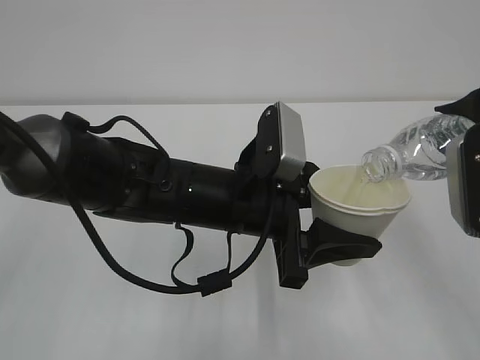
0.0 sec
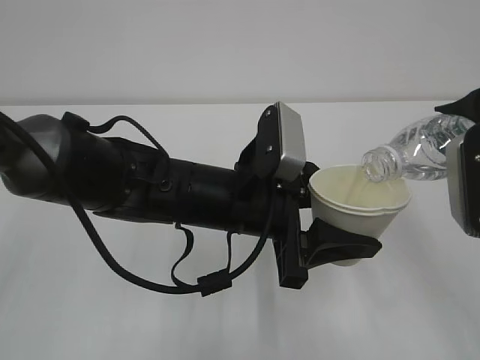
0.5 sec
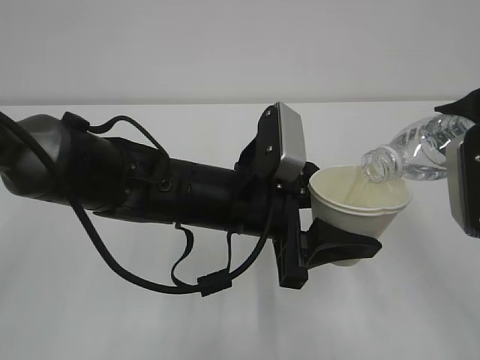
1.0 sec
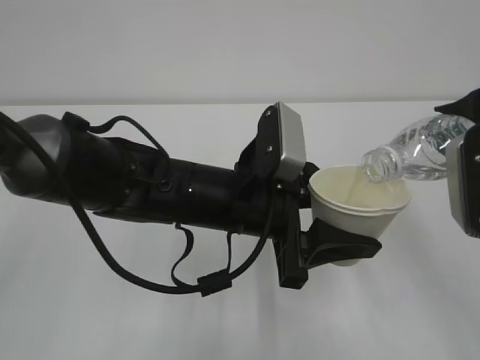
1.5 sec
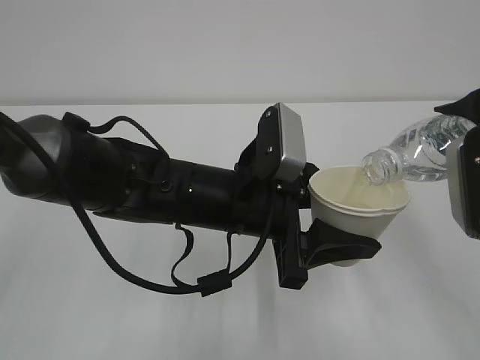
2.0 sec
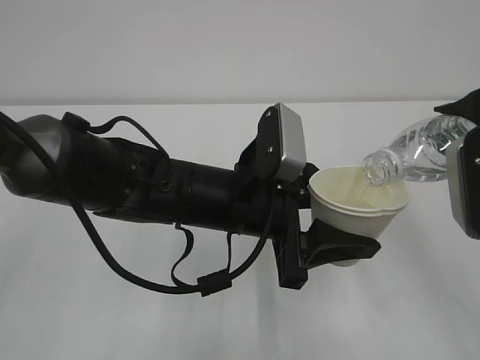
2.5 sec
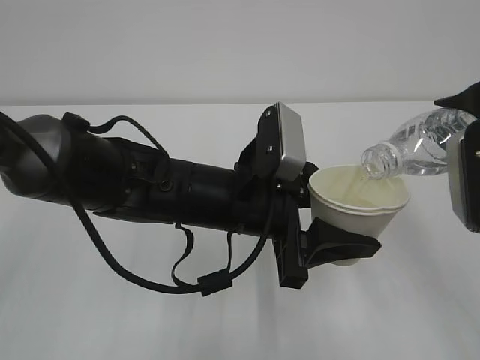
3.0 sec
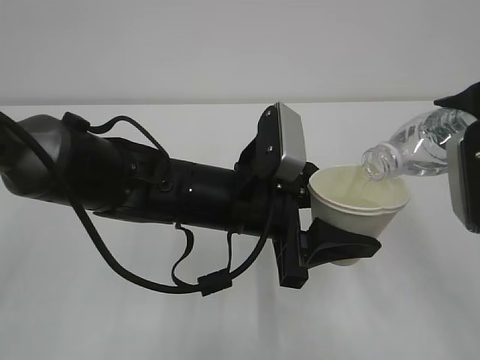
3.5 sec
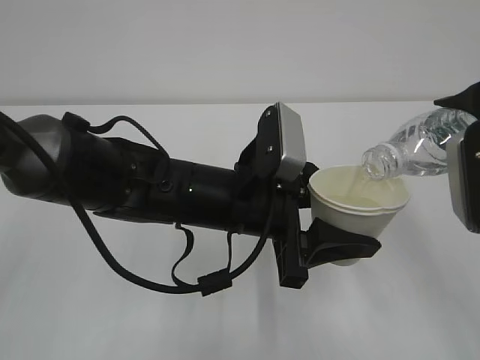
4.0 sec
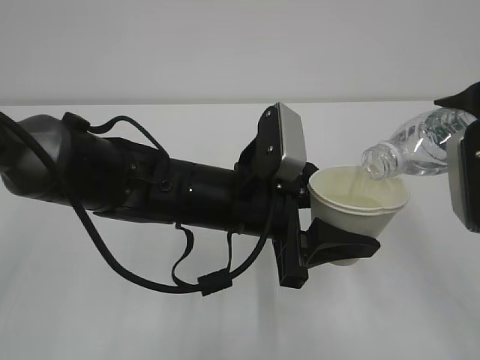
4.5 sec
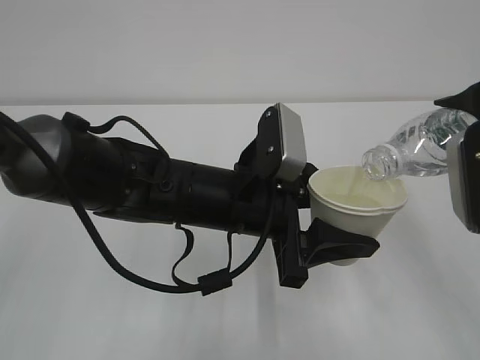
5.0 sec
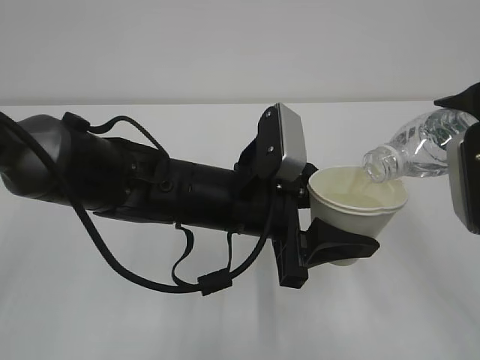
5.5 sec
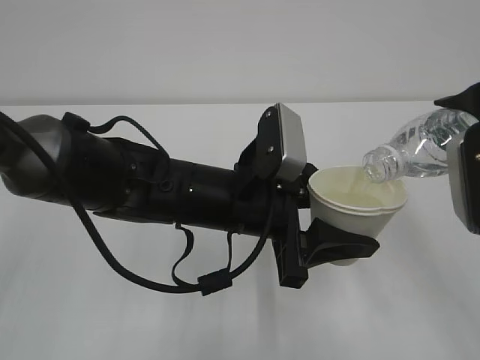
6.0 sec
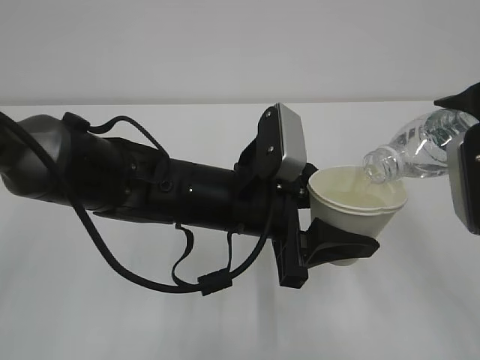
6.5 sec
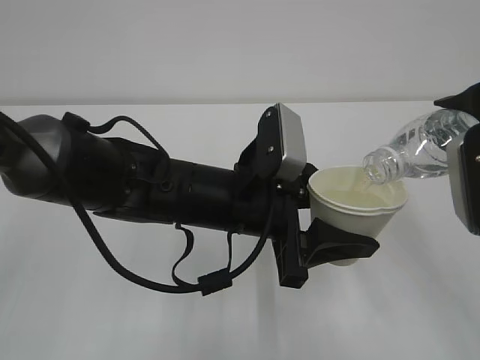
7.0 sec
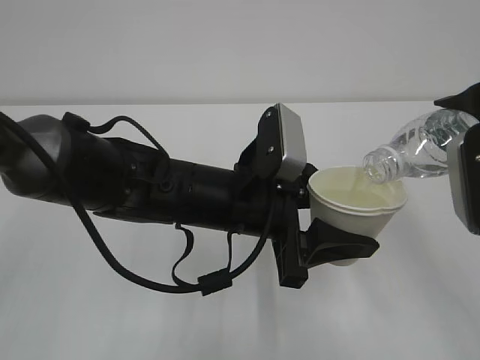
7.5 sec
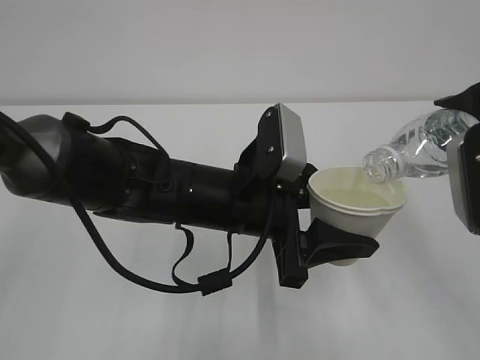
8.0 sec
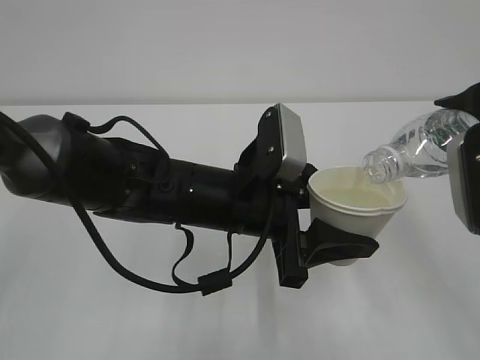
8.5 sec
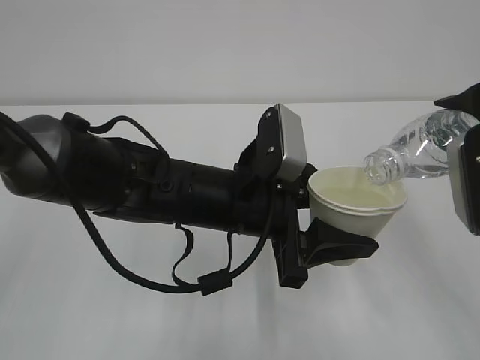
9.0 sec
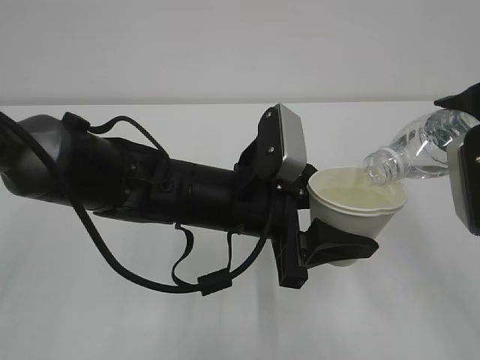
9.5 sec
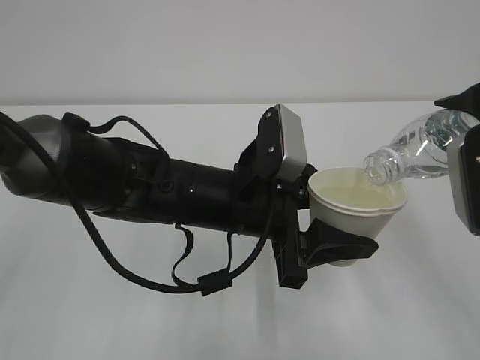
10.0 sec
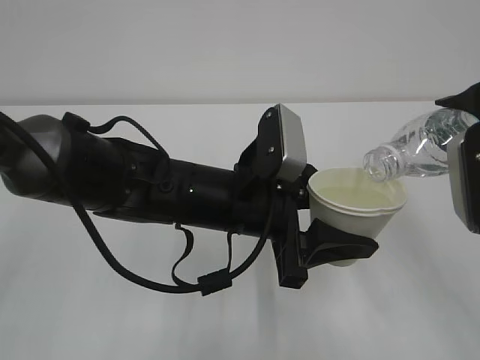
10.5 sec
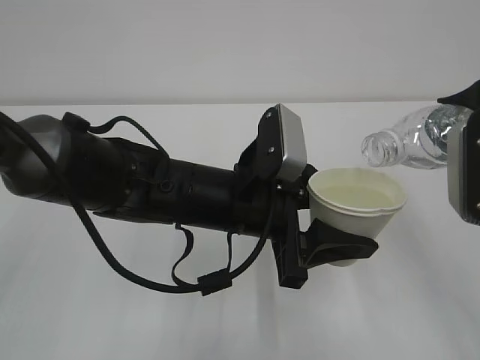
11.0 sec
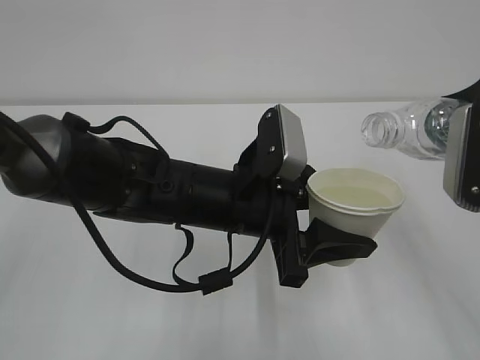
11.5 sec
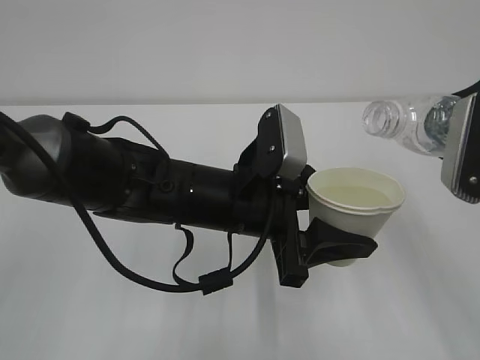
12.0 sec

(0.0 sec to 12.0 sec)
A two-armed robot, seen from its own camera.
0.0 sec - 10.0 sec: Both grippers stay put.

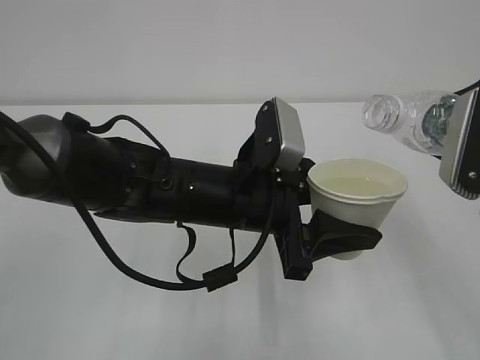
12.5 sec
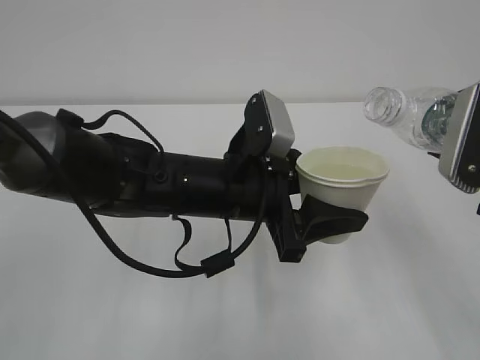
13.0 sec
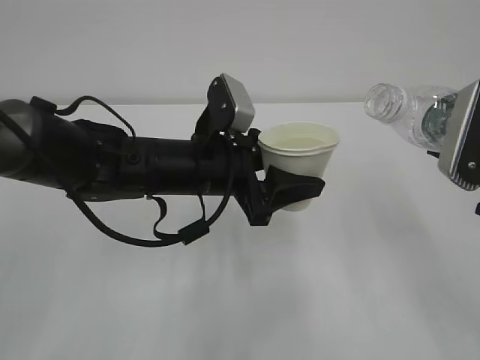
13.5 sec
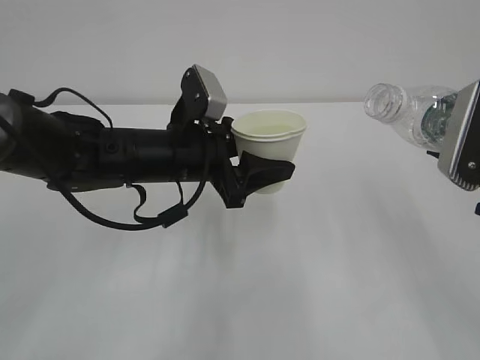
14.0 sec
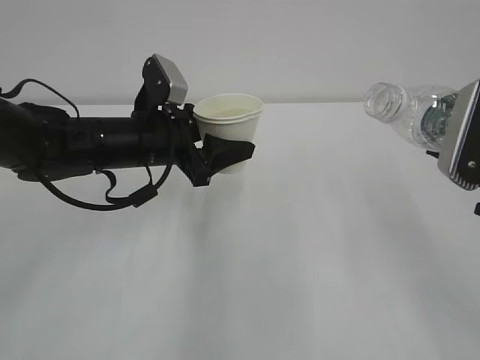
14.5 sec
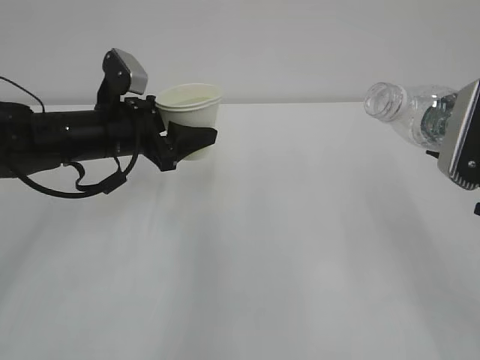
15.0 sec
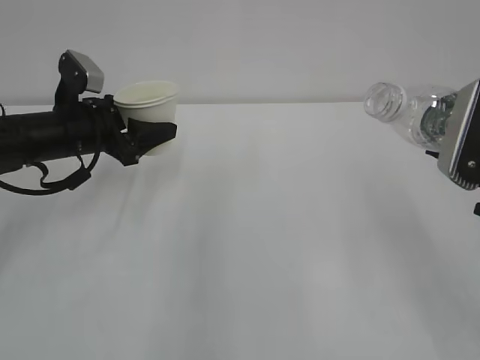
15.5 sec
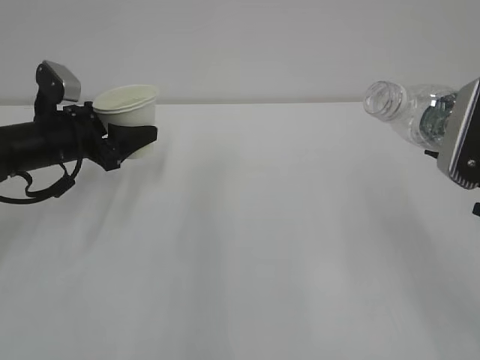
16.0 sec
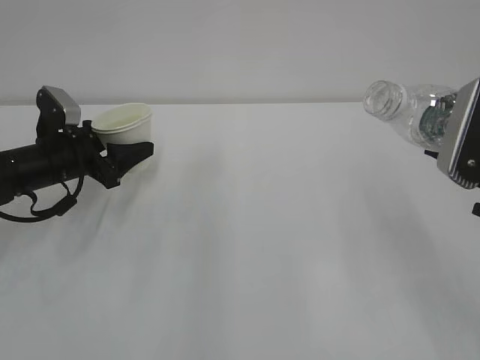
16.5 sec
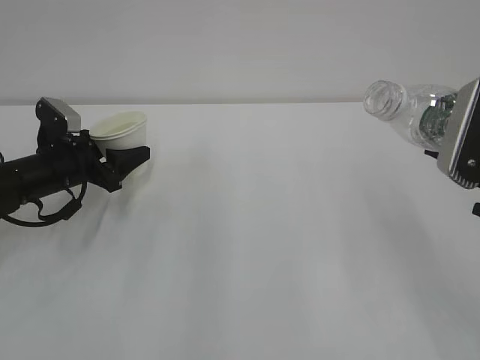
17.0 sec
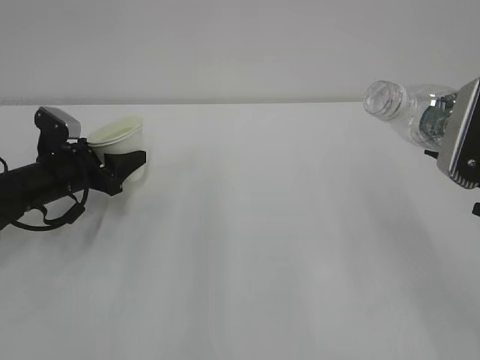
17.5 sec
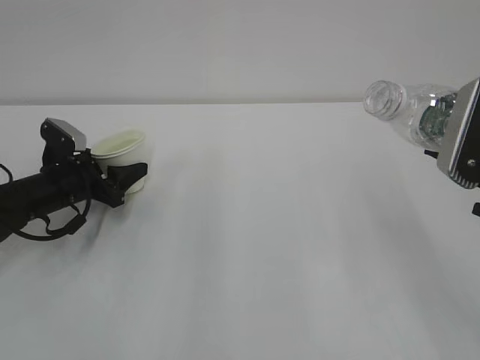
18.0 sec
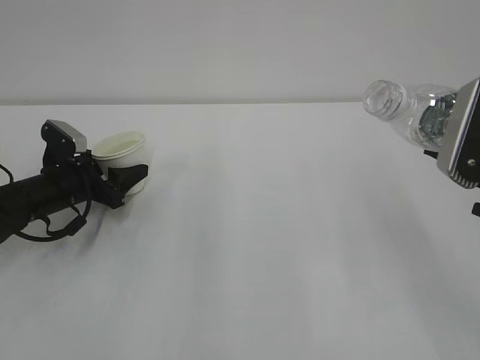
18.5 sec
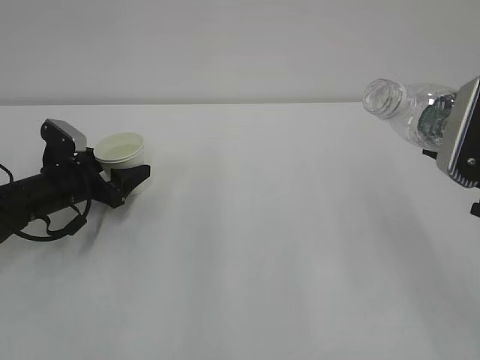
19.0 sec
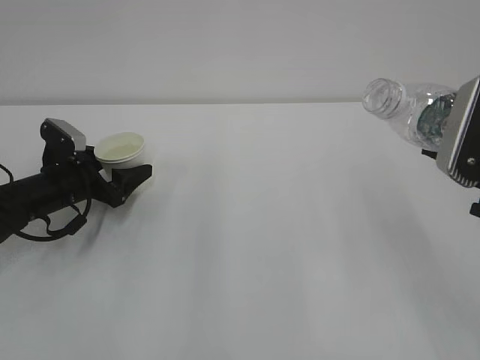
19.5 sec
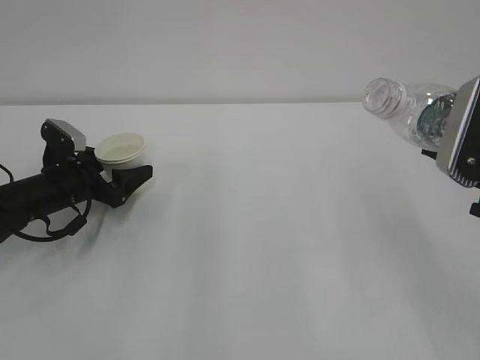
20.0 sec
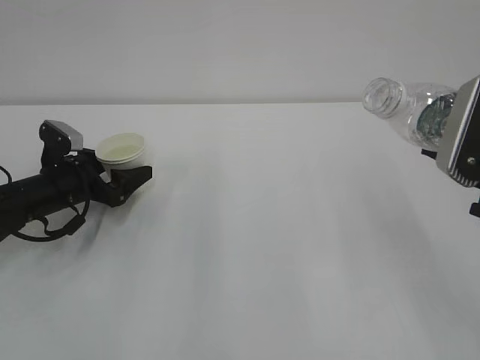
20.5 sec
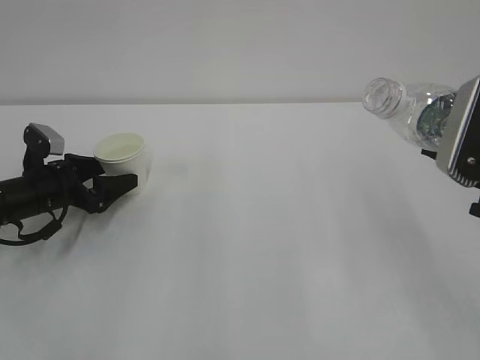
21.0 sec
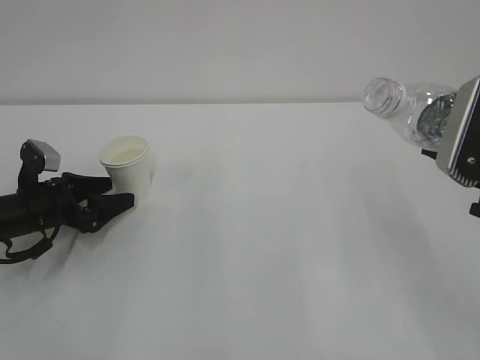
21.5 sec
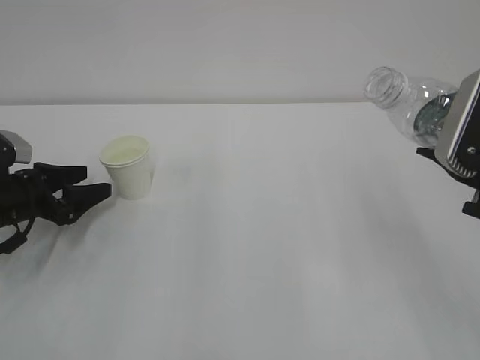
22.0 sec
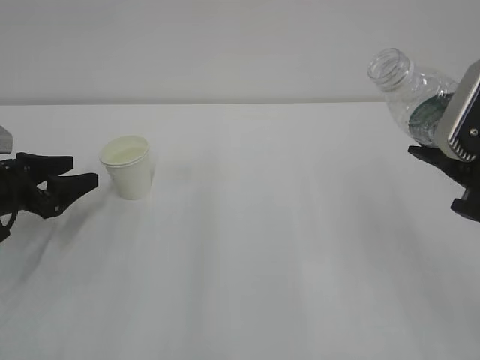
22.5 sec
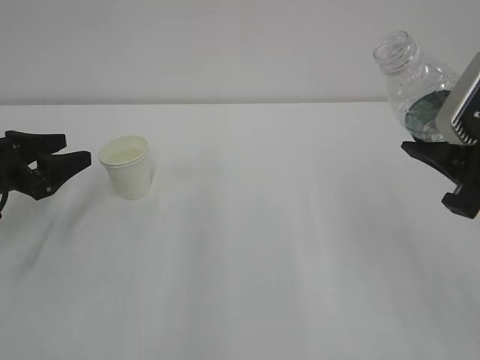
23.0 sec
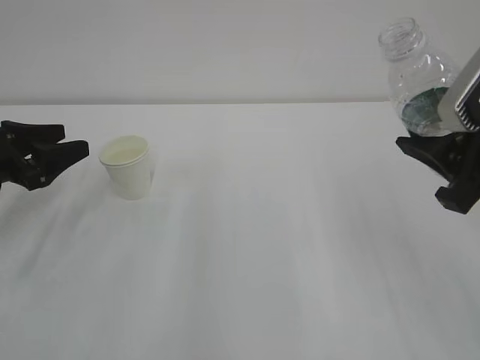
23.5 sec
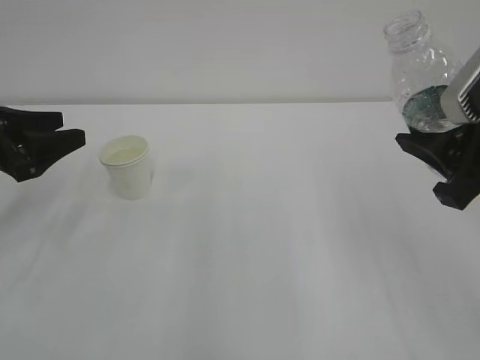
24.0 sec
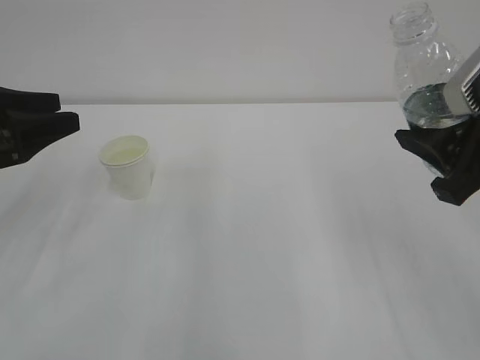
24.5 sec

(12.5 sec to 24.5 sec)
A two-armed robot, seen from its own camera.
12.5 sec - 14.5 sec: The left gripper shifts some 15 cm to the left and forward.
14.5 sec - 16.5 sec: The left gripper travels to the left and downward by some 15 cm.
16.5 sec - 18.5 sec: The left gripper is displaced downward by some 5 cm.
18.5 sec - 20.5 sec: The left gripper opens up.
20.5 sec - 22.5 sec: The left gripper goes some 10 cm to the left and backward.
22.5 sec - 24.5 sec: The left gripper heads upward, covering about 10 cm.

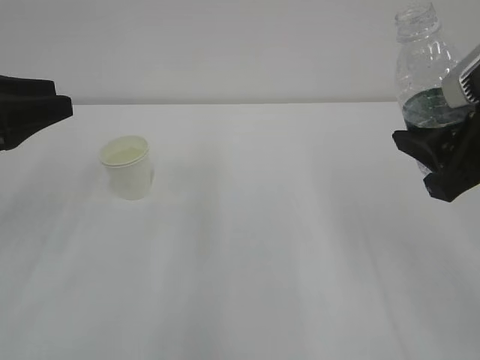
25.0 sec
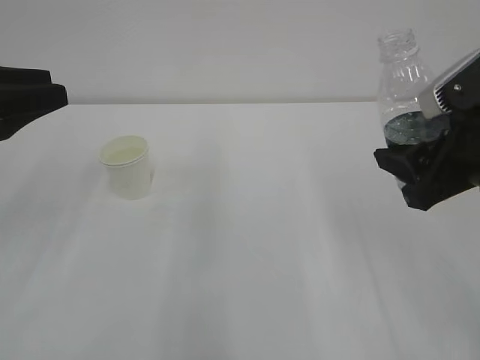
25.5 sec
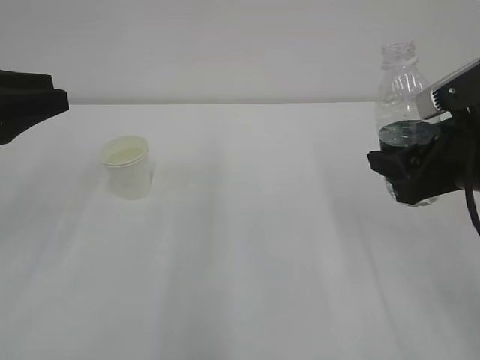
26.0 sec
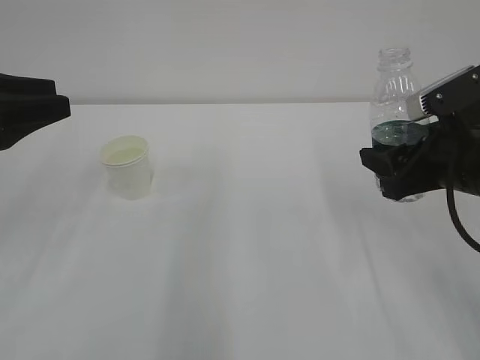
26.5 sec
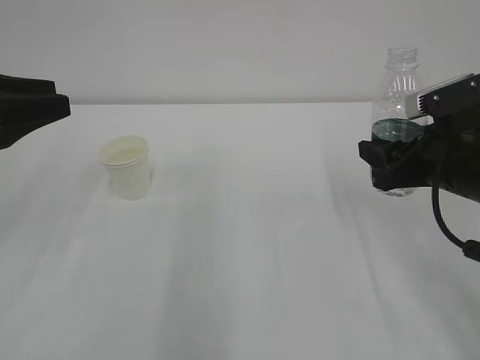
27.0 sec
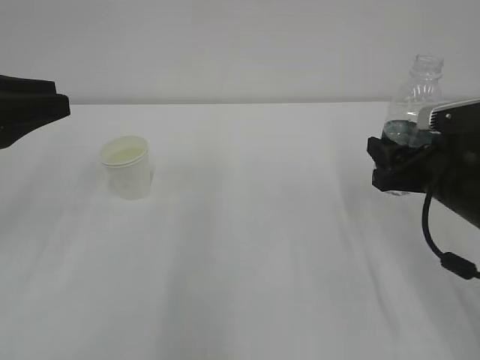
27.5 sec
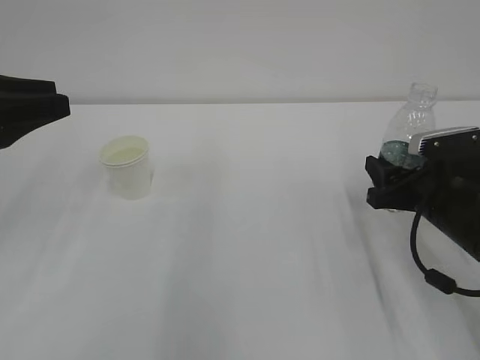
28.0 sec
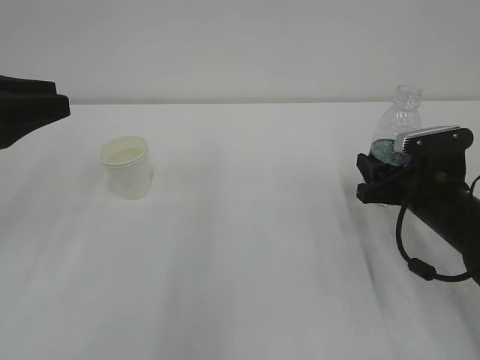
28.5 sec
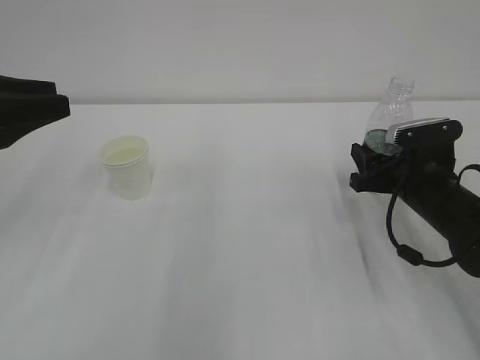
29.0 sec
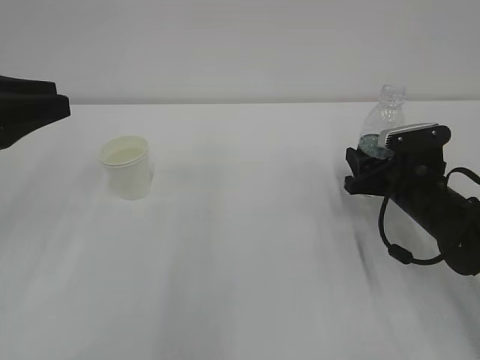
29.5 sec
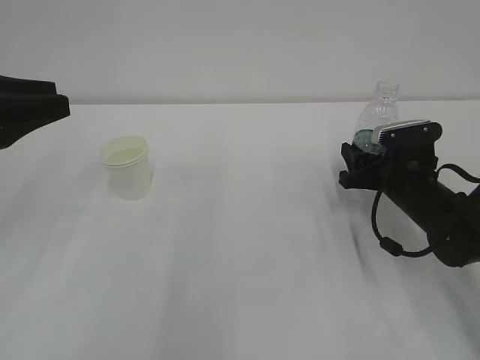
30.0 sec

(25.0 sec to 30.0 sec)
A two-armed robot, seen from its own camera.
25.0 sec - 27.5 sec: The right gripper travels downward and forward by approximately 15 cm.
27.5 sec - 30.0 sec: The right gripper heads downward and forward, covering approximately 10 cm.
